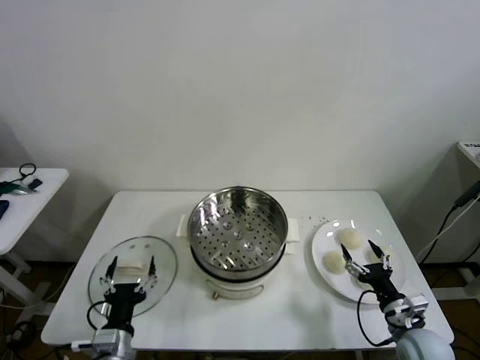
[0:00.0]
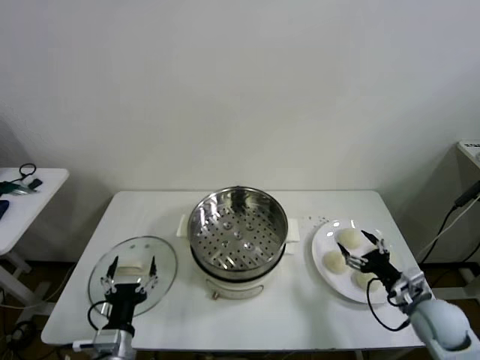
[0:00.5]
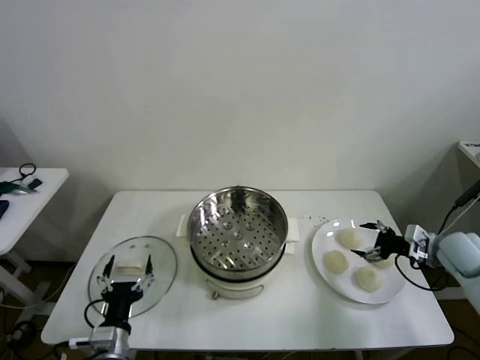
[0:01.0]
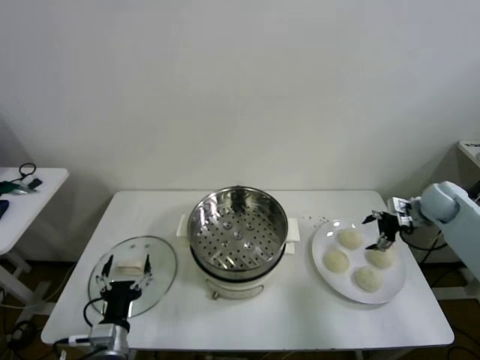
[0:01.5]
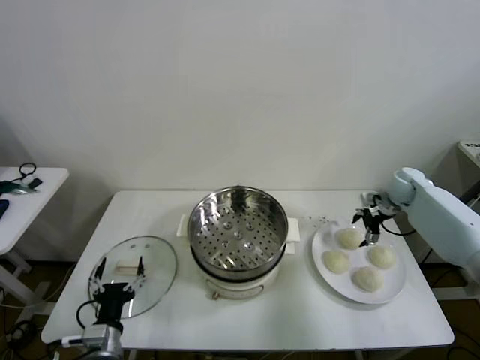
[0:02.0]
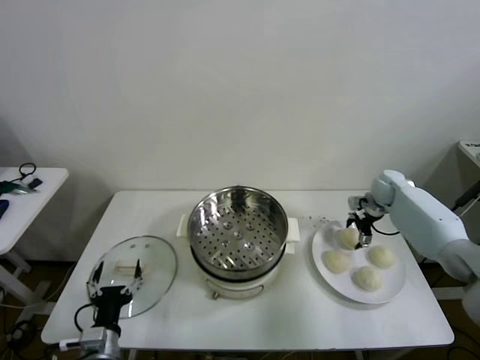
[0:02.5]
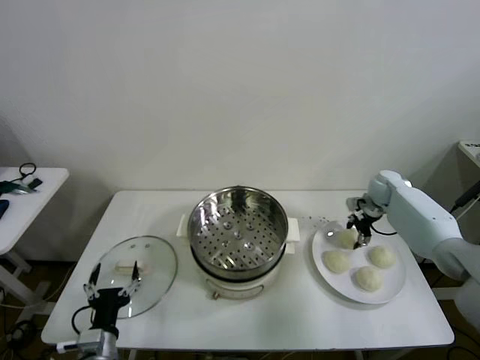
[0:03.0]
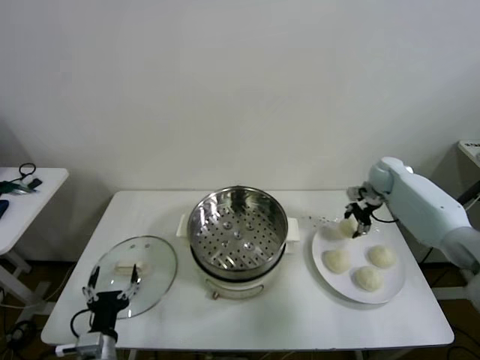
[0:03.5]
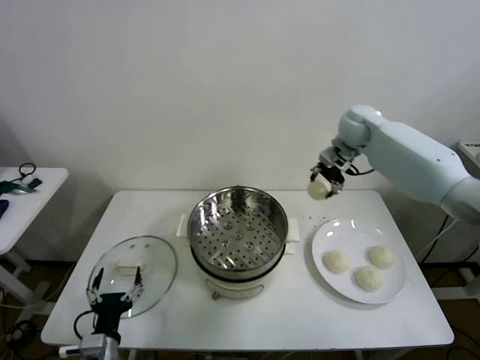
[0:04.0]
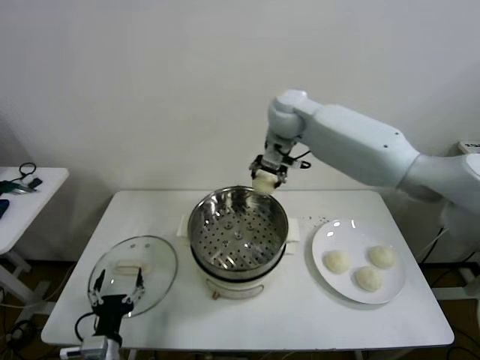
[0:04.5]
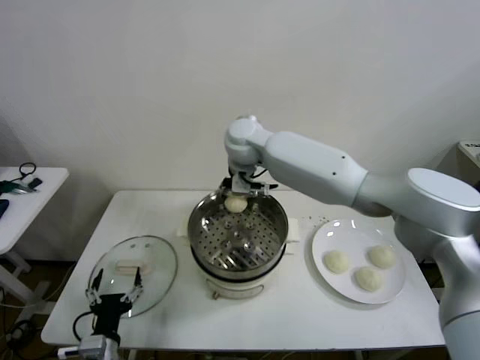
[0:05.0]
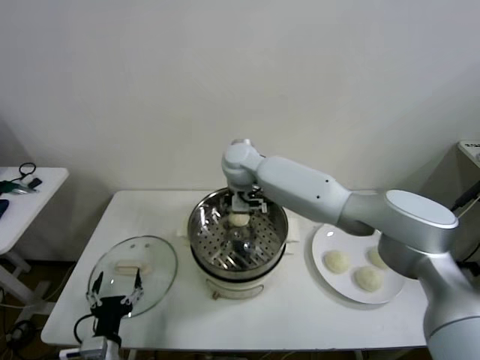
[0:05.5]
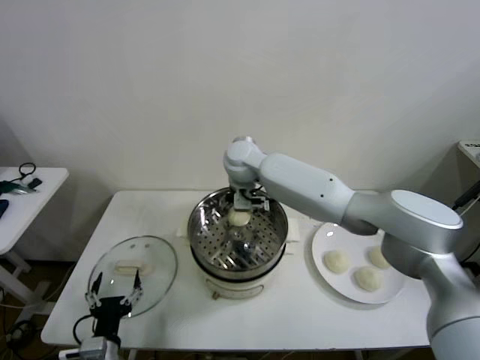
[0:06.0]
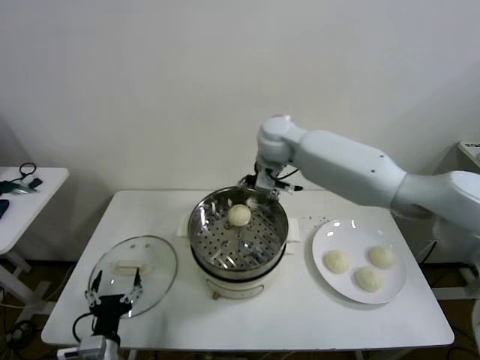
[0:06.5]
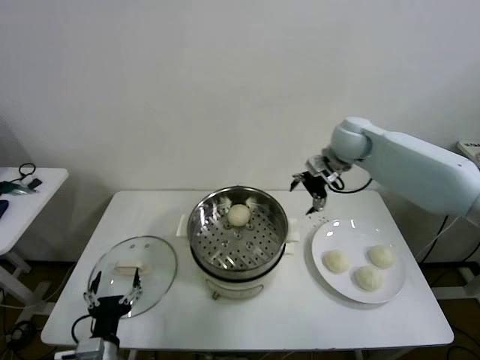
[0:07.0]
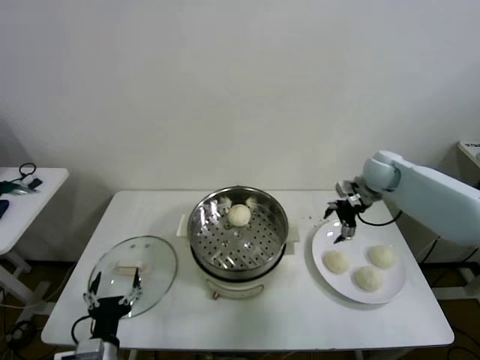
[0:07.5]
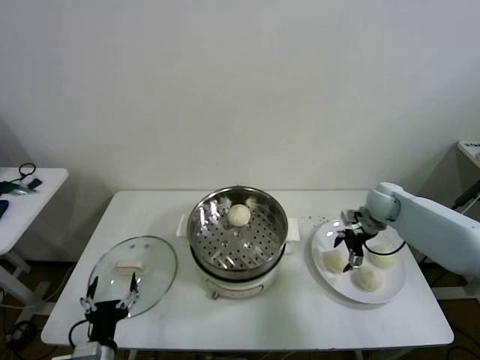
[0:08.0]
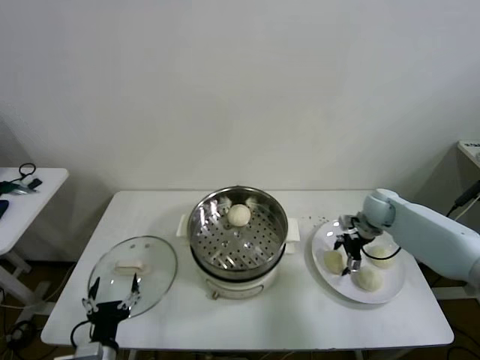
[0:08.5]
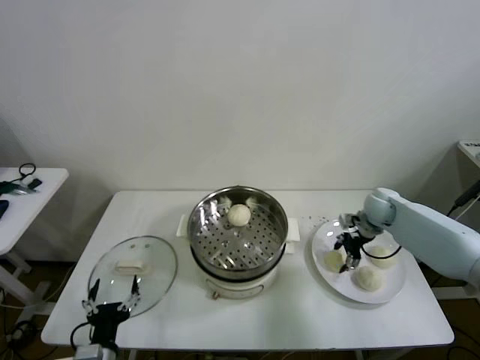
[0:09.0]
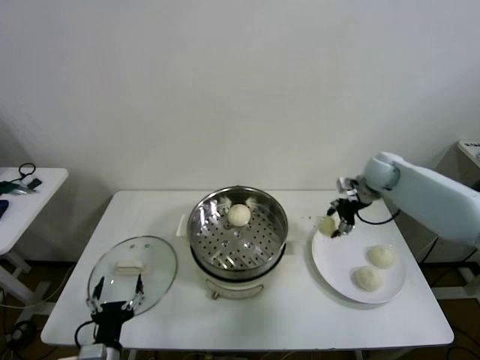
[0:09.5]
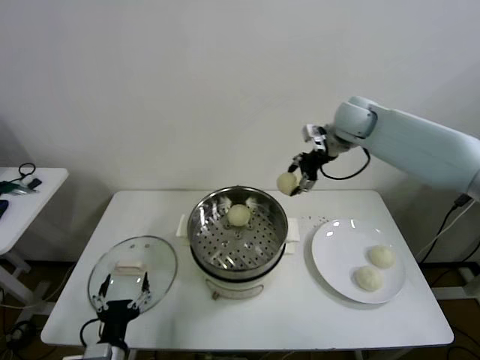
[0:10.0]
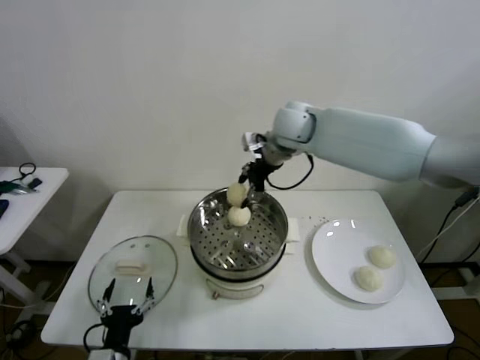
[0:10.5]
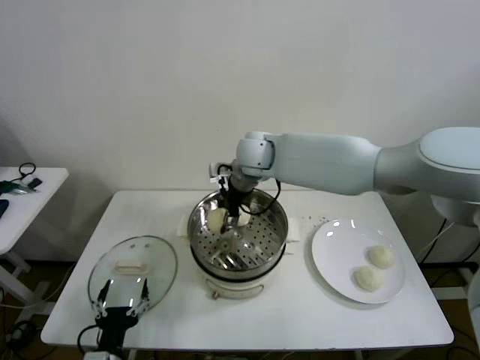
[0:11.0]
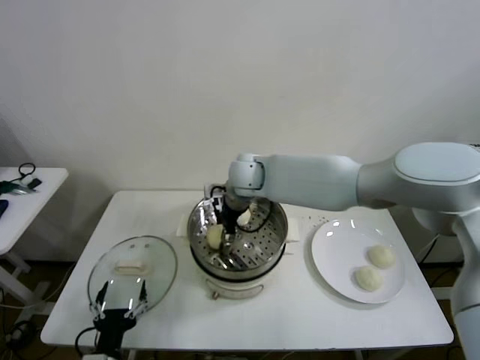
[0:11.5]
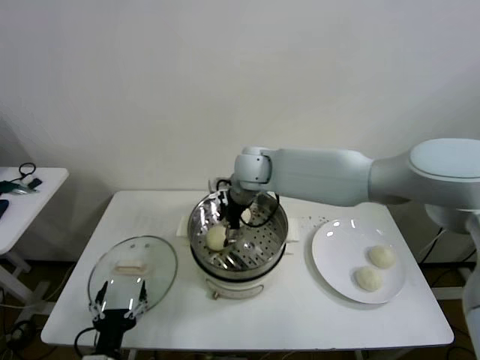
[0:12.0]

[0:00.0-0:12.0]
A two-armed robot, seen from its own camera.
Step, 0:00.0 to 0:03.0: Grasp the baozi in the plate with right gripper.
Step, 0:03.5 to 0:05.5: Place the baozi on the steamer with right gripper.
Step, 0:06.0 to 0:08.5: Grasp the baozi in the plate with right gripper.
Step, 0:09.0 to 0:11.5: Place the baozi on the steamer with right gripper.
0:02.0 to 0:04.0: The right gripper is displaced upward and to the left by approximately 25 cm, and closes.
0:04.0 to 0:06.0: The right gripper shifts about 25 cm to the left, and opens up.
0:06.0 to 0:08.0: The right gripper moves to the right, roughly 35 cm.
0:08.0 to 0:10.0: The right gripper shifts some 25 cm upward and to the left, and closes its fingers.
0:10.0 to 0:12.0: The right gripper moves to the left and downward, approximately 20 cm, and opens its fingers.

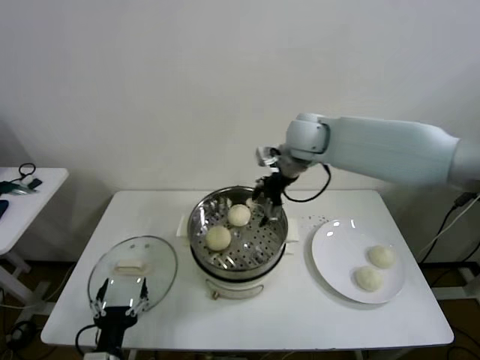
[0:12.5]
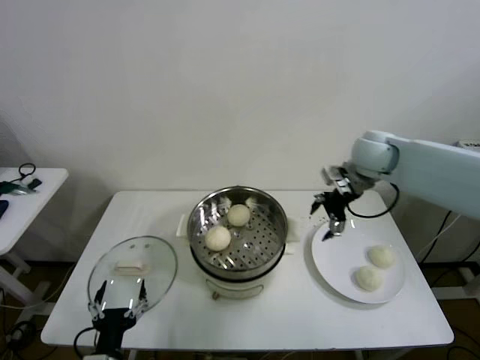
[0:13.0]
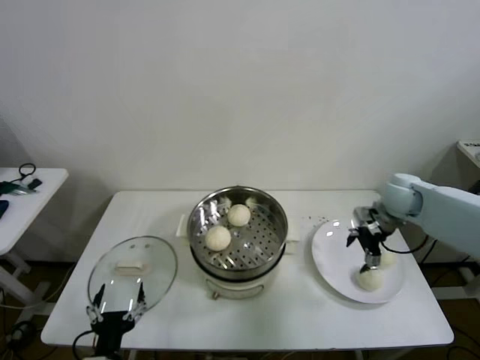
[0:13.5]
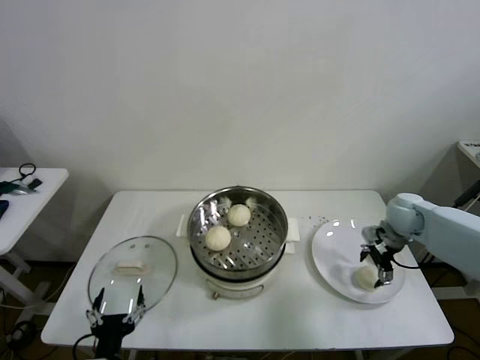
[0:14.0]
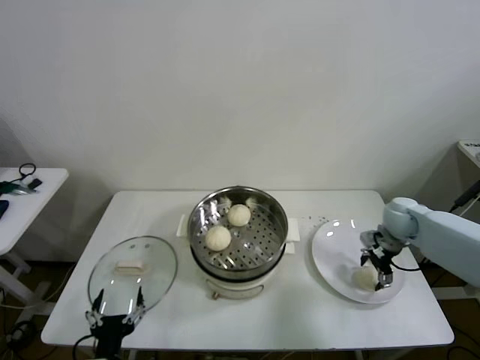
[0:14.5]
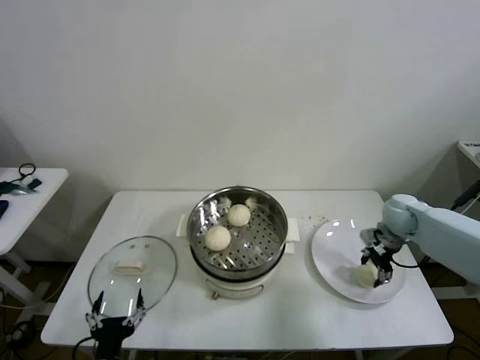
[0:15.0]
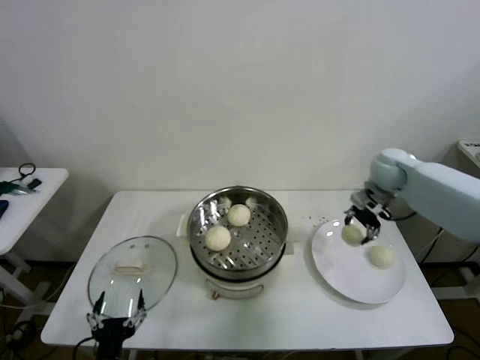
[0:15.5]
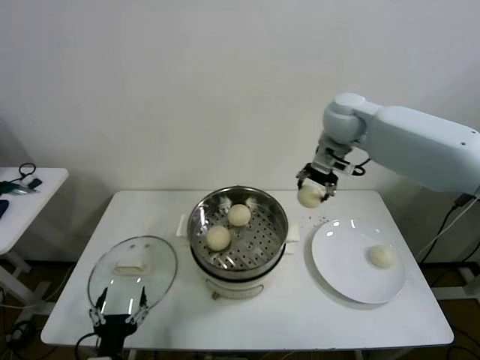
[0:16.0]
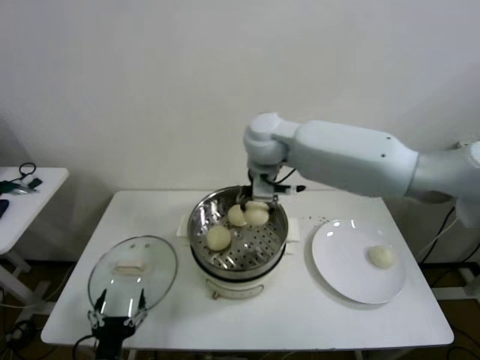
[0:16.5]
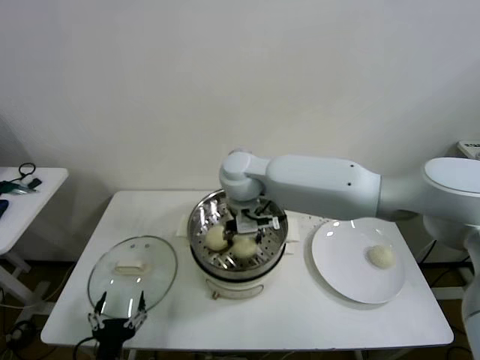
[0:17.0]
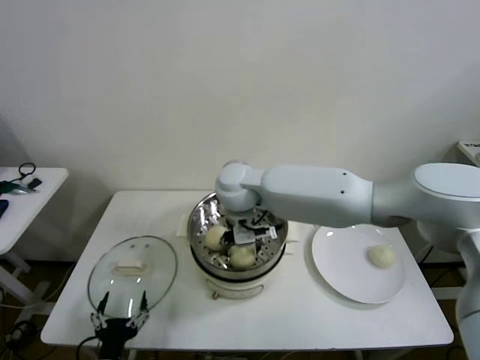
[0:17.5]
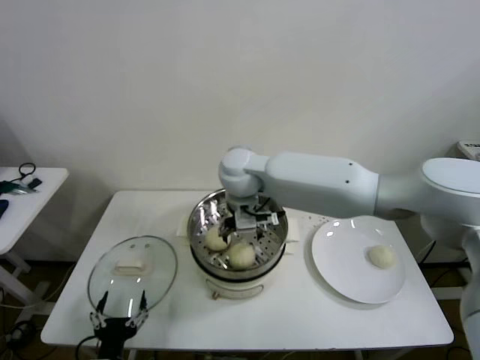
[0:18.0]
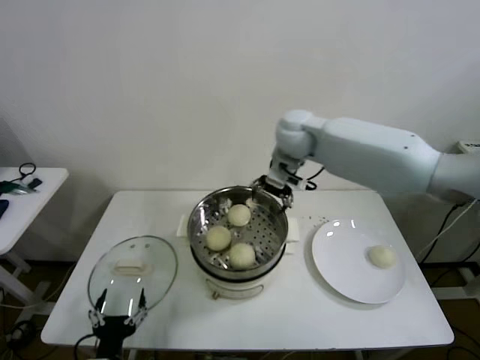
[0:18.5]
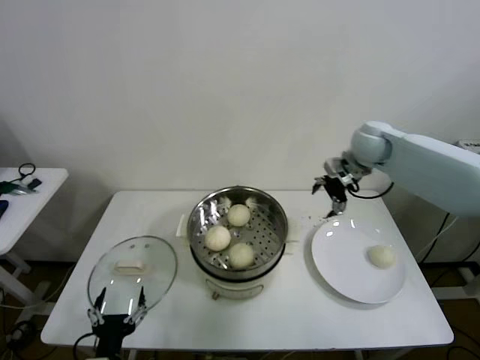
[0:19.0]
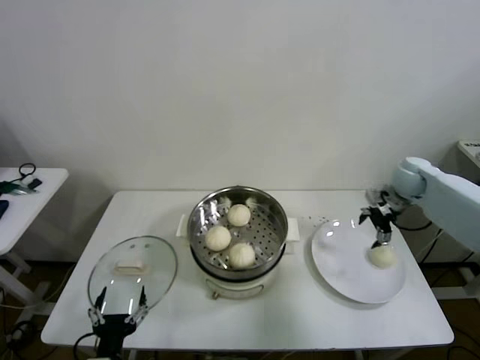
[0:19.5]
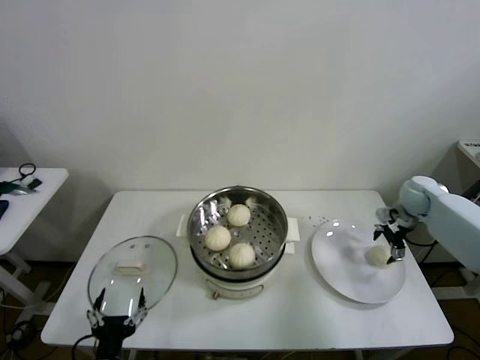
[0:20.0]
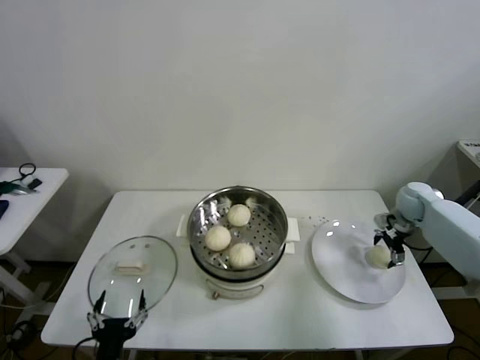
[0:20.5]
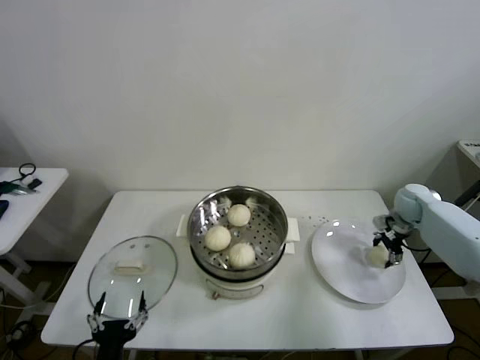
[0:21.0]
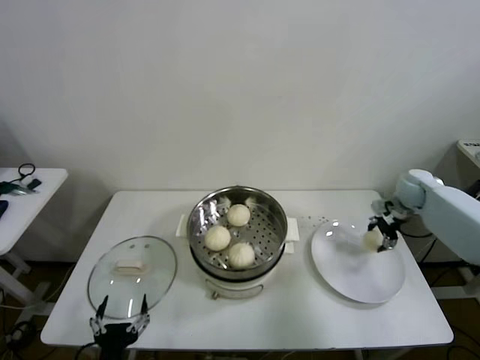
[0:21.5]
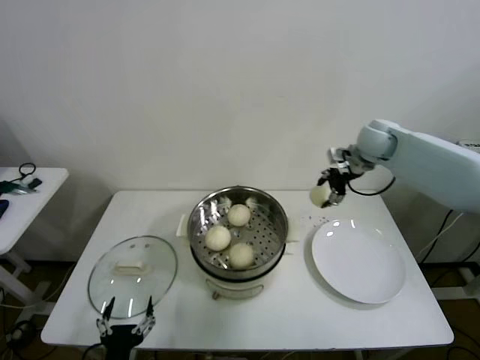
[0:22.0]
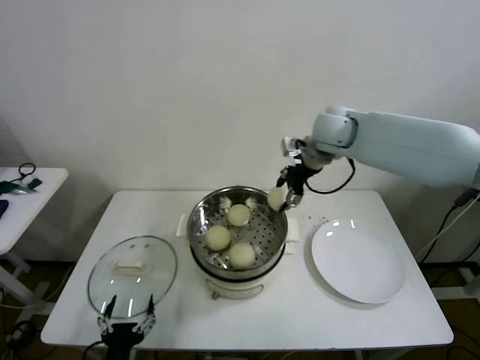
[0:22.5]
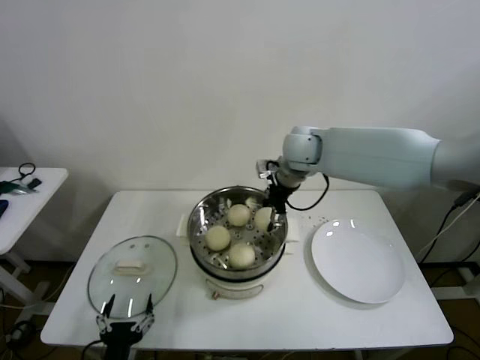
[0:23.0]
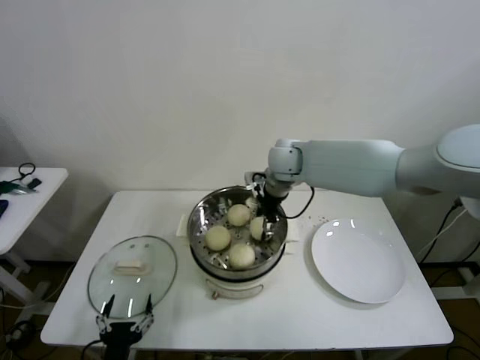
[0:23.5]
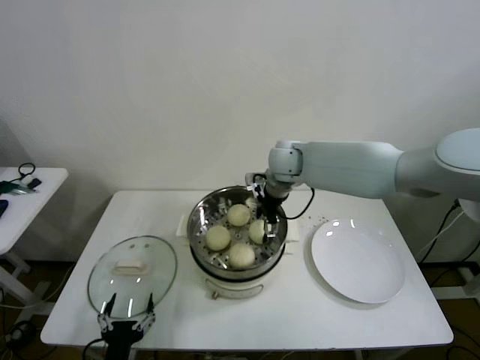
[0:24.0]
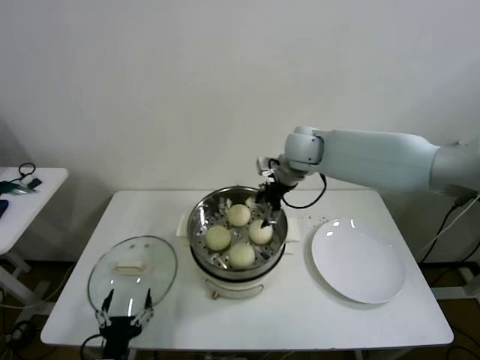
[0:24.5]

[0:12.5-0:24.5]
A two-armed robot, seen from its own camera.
Step, 0:12.5 to 0:14.5: Grasp the baozi in the plate with right gripper.
Step, 0:15.0 to 0:17.5: Place the baozi on the steamer with right gripper.
Step, 0:18.0 to 0:20.5: Grasp the baozi in the plate with right gripper.
Step, 0:21.5 to 0:23.5: Place the baozi on the steamer with right gripper.
0:12.5 to 0:14.5: The right gripper is displaced to the right and downward by some 35 cm.
0:14.5 to 0:16.5: The right gripper is displaced to the left and upward by about 40 cm, and closes its fingers.
0:16.5 to 0:18.5: The right gripper goes roughly 10 cm to the right, and opens its fingers.
0:18.5 to 0:20.5: The right gripper goes about 40 cm to the right and downward.
0:20.5 to 0:22.5: The right gripper heads to the left and upward, covering about 35 cm, and closes its fingers.
0:22.5 to 0:24.5: The right gripper goes approximately 10 cm to the left and downward, and opens.

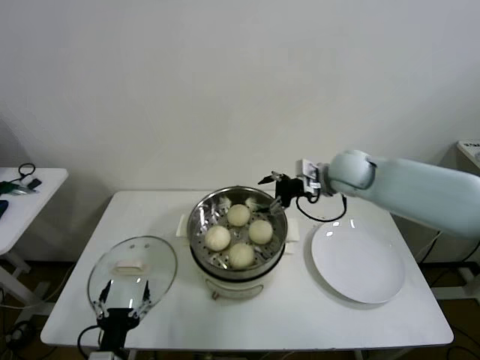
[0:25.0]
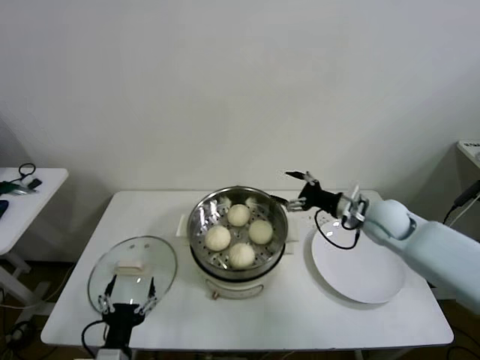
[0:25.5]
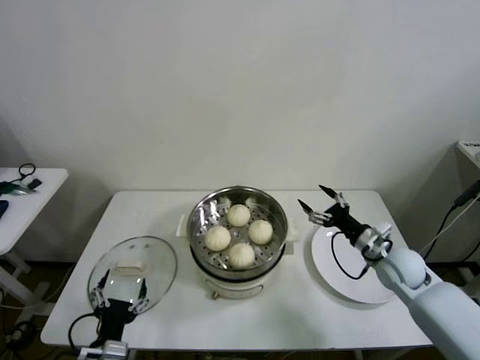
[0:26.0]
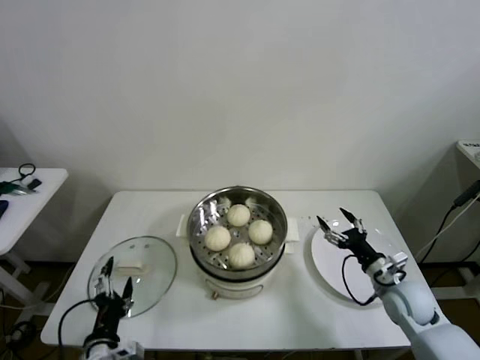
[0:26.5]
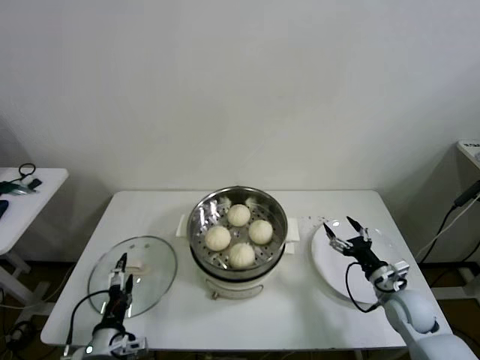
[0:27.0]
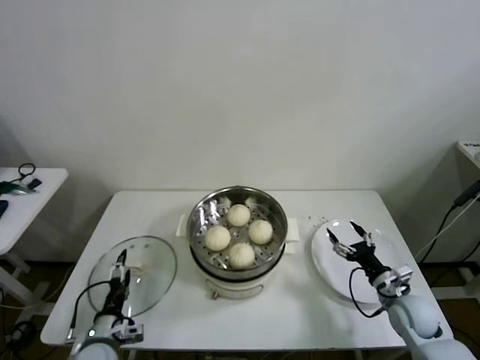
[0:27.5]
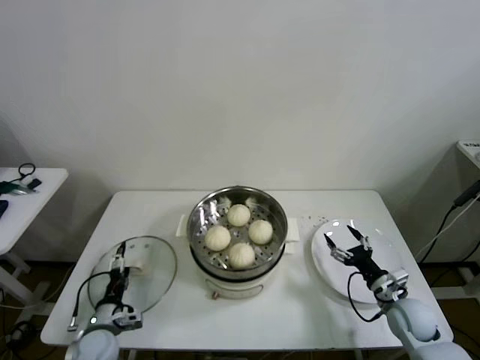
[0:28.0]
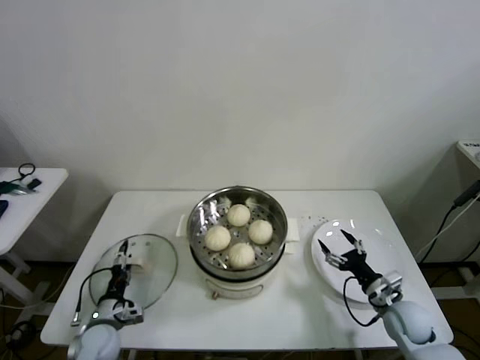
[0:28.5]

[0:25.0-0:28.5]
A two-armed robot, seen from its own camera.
0:25.0 to 0:27.0: The right gripper heads downward, backward and to the right, covering roughly 35 cm, while the left gripper shifts by about 5 cm.
0:27.0 to 0:28.5: The left gripper is displaced forward, downward and to the left by about 15 cm.
